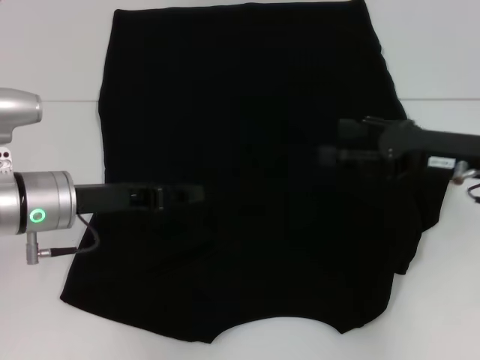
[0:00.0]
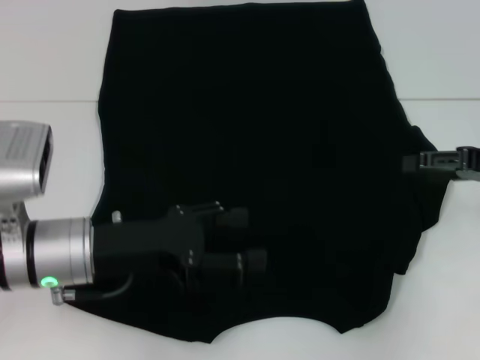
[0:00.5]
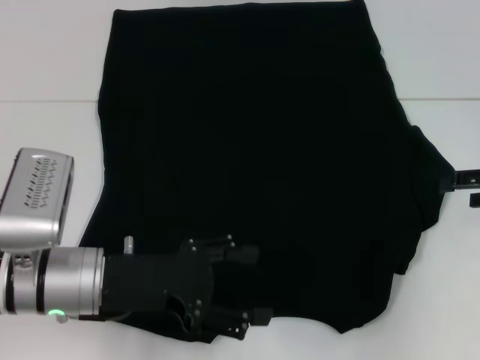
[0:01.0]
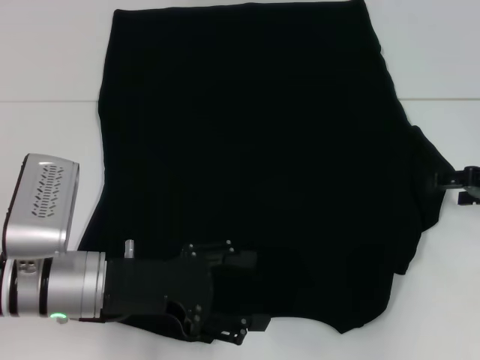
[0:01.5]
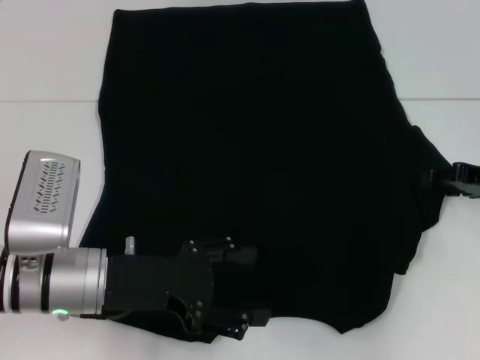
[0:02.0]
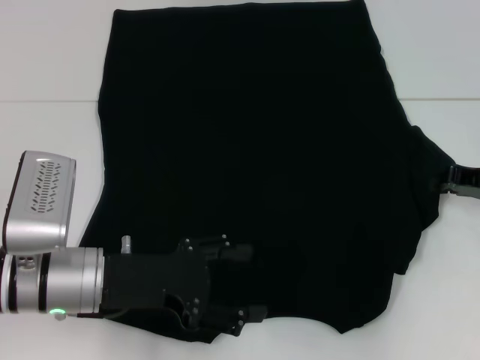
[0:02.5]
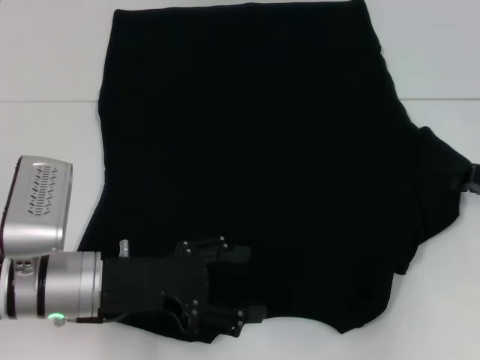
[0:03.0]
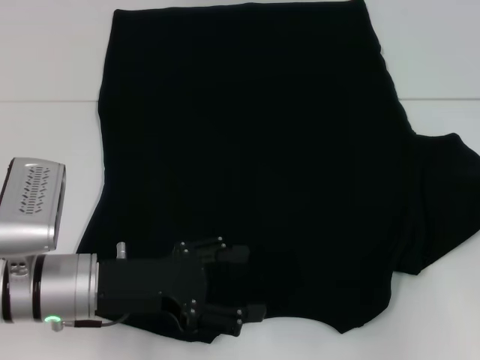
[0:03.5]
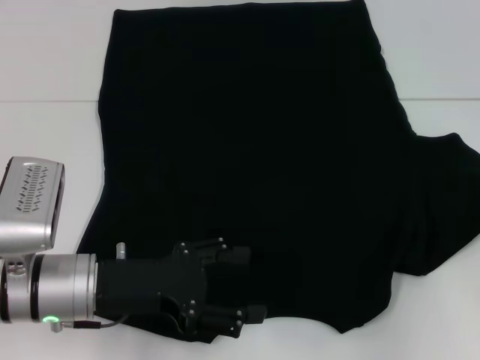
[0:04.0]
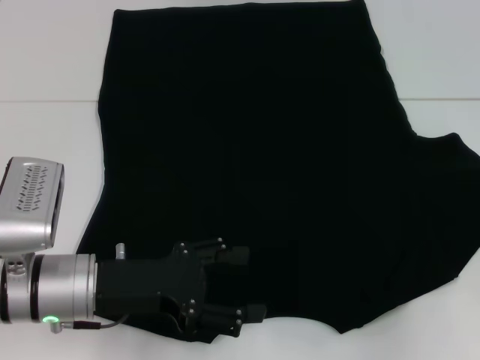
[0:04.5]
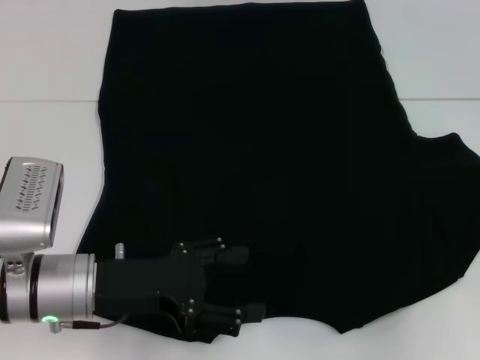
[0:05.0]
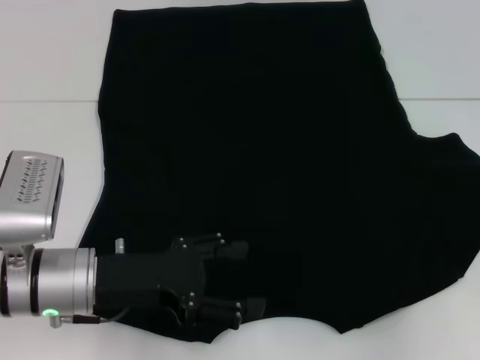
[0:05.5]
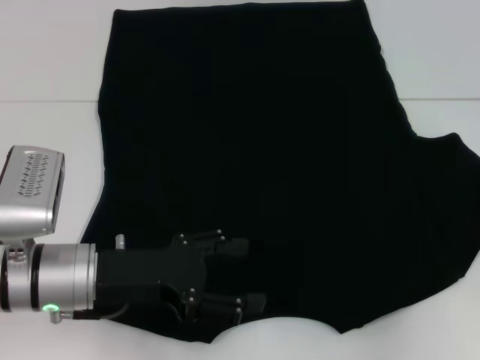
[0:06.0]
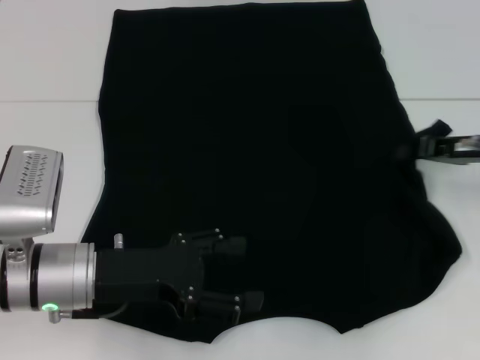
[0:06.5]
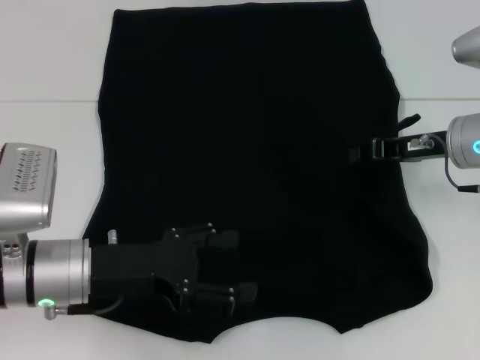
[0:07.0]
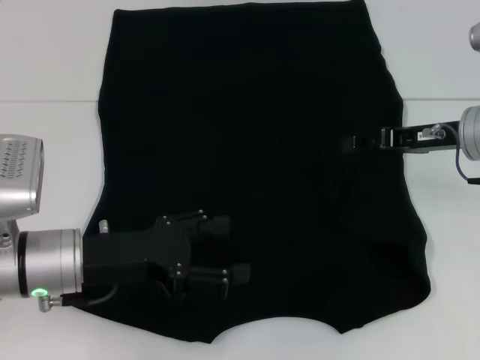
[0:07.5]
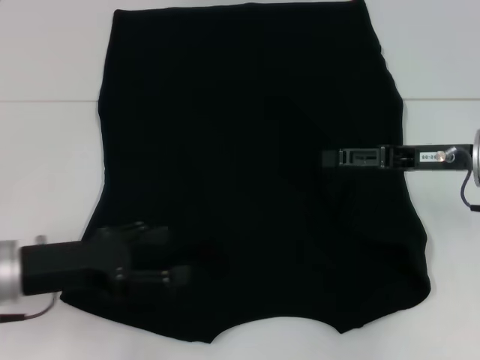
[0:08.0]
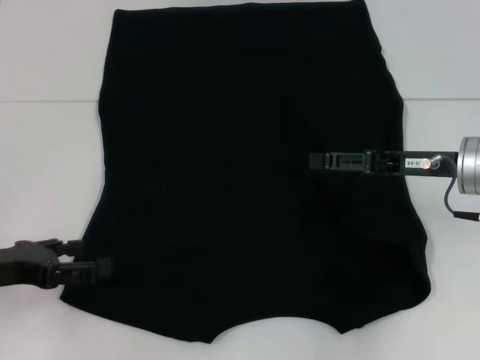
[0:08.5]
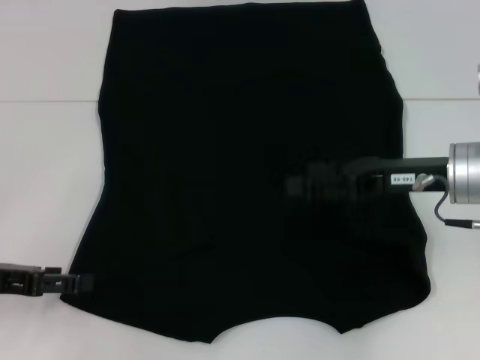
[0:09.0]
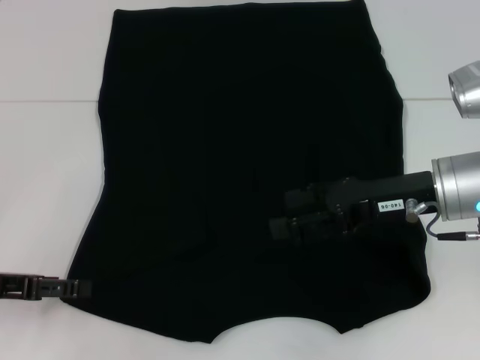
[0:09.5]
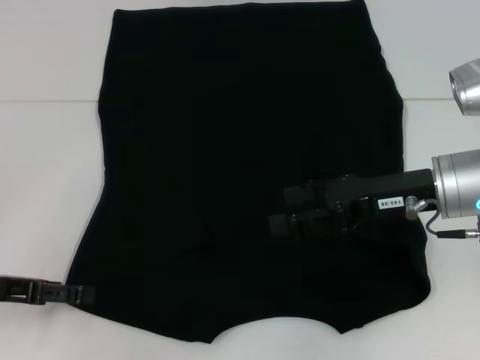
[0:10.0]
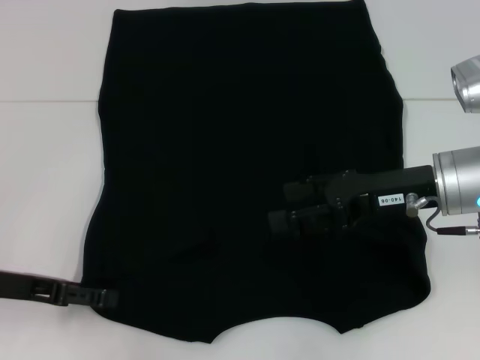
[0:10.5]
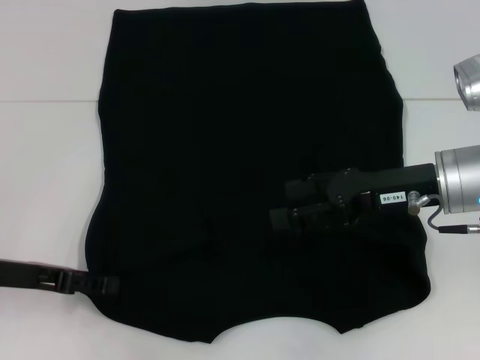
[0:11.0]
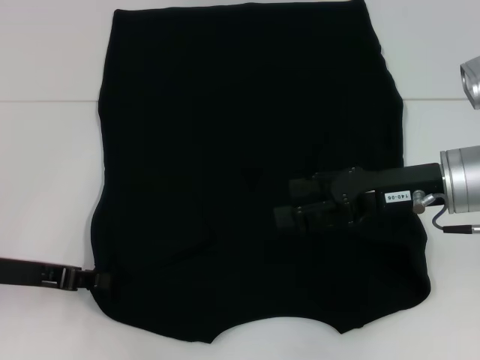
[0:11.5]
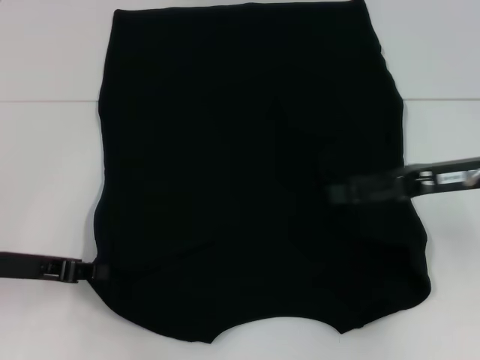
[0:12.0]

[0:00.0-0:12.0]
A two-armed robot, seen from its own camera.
Step, 0:00.5 to 0:07.5: Fold the bottom right sleeve with your right hand.
0:00.0 to 0:02.0: The right gripper is displaced to the right by approximately 5 cm. The left gripper moves backward, approximately 5 cm, and opens.
0:02.0 to 0:04.0: The right gripper is displaced to the right by about 5 cm, and closes up.
0:04.0 to 0:06.0: The two grippers keep their place.
0:06.0 to 0:08.0: The right gripper moves to the left, roughly 10 cm, and opens up, while the left gripper shifts about 5 cm to the left.
0:08.0 to 0:10.0: The left gripper goes approximately 5 cm to the left, while the right gripper moves some 5 cm.
0:10.0 to 0:12.0: The left gripper closes. Meanwhile the right gripper travels to the right by roughly 5 cm.

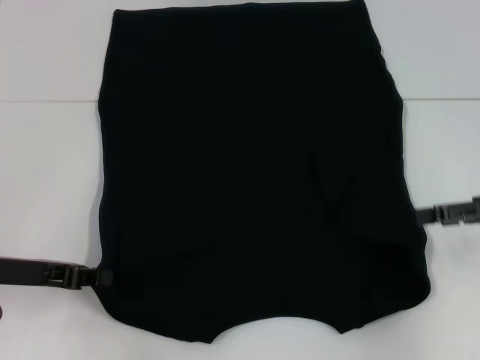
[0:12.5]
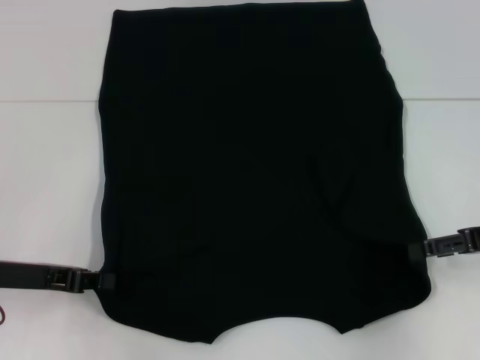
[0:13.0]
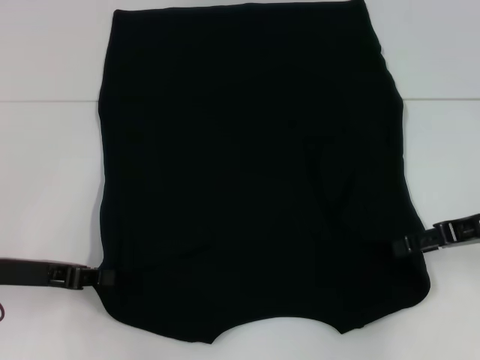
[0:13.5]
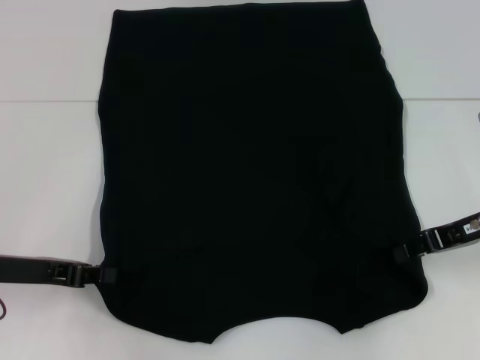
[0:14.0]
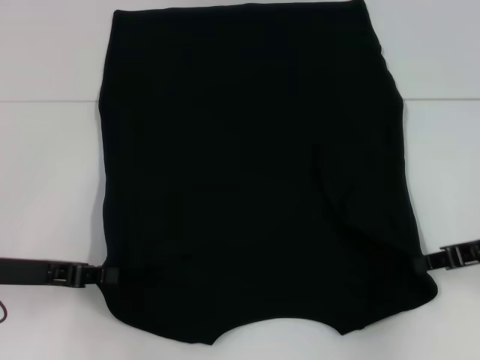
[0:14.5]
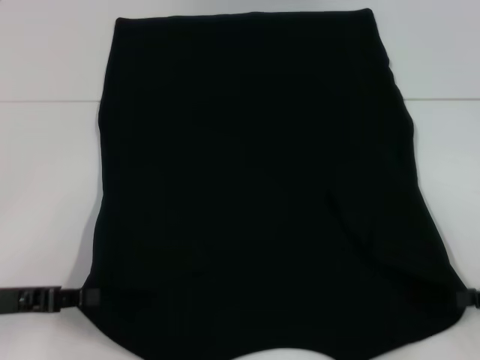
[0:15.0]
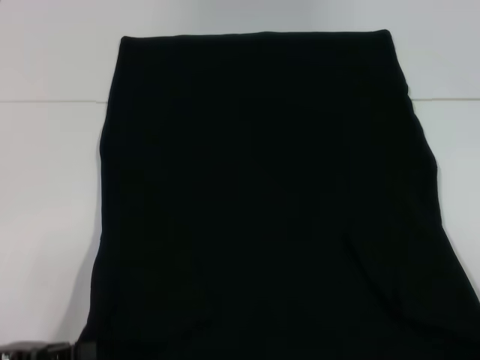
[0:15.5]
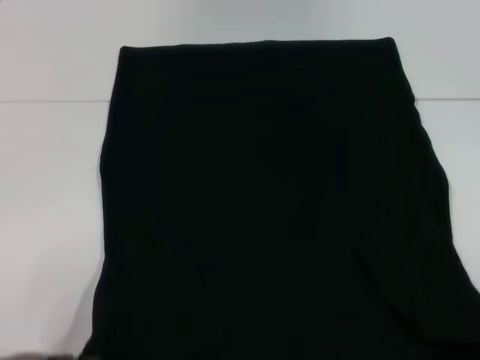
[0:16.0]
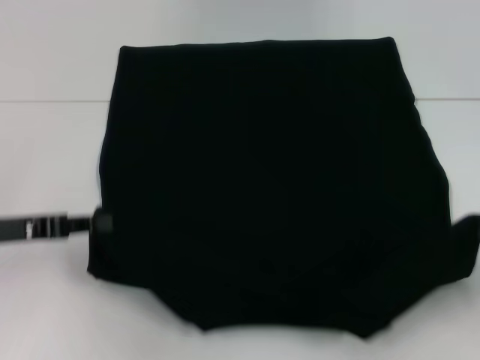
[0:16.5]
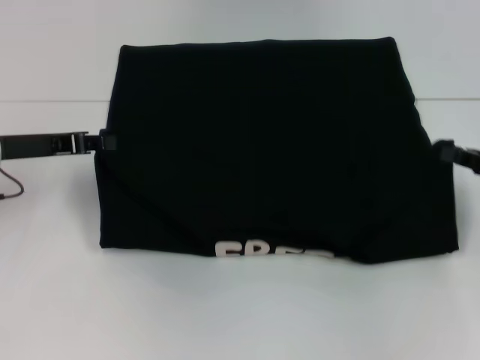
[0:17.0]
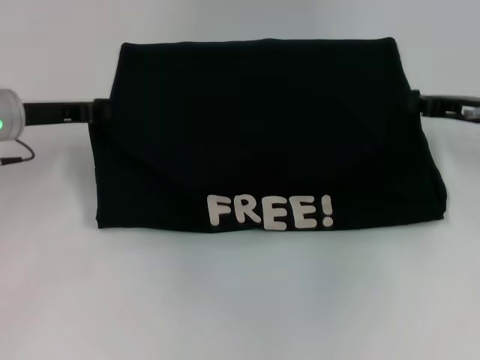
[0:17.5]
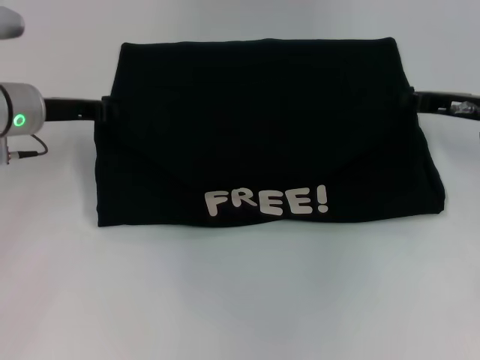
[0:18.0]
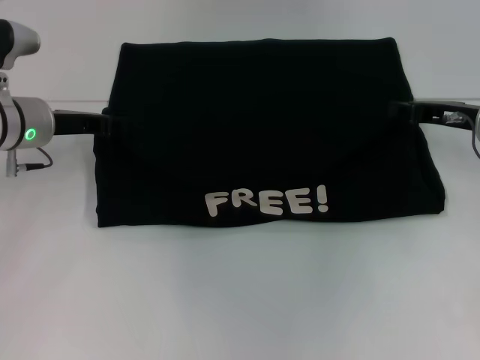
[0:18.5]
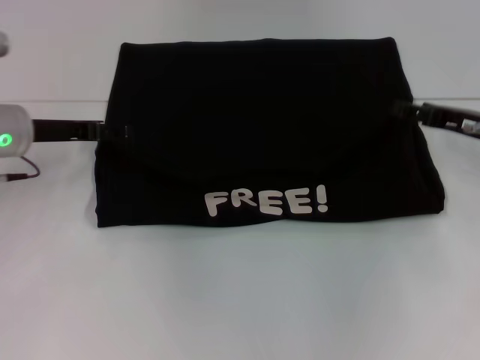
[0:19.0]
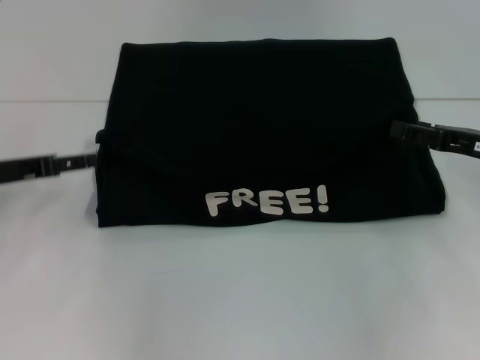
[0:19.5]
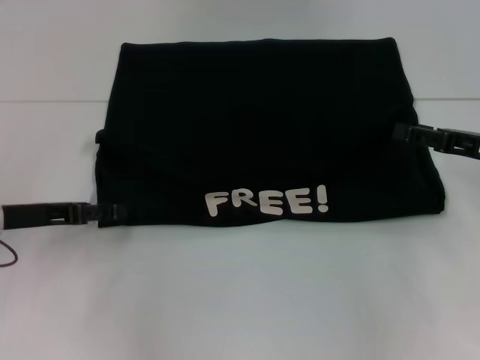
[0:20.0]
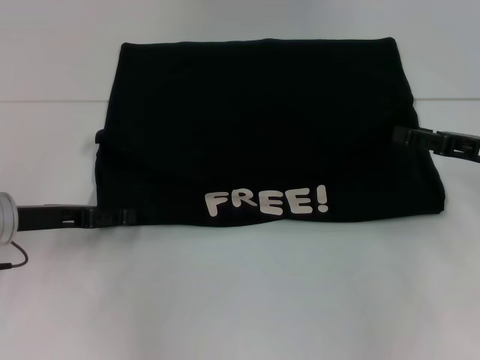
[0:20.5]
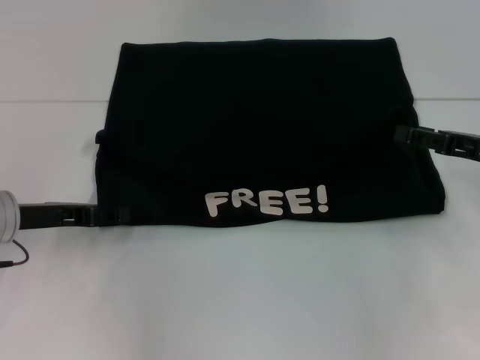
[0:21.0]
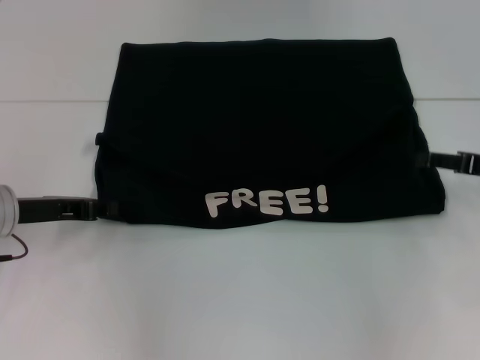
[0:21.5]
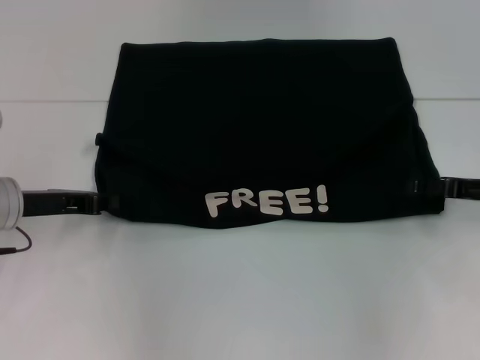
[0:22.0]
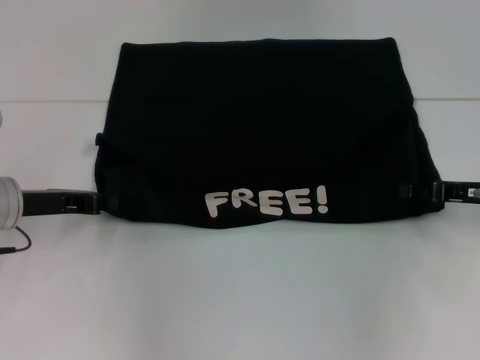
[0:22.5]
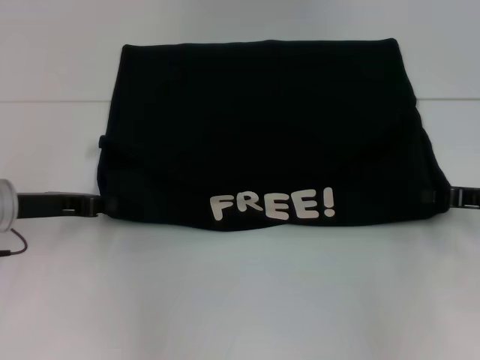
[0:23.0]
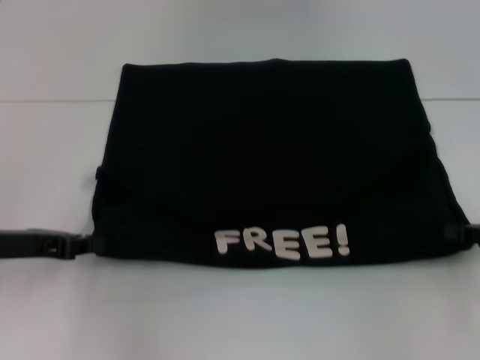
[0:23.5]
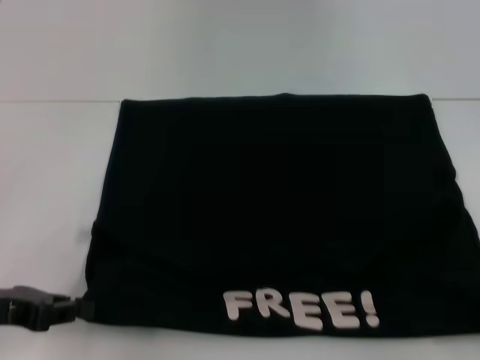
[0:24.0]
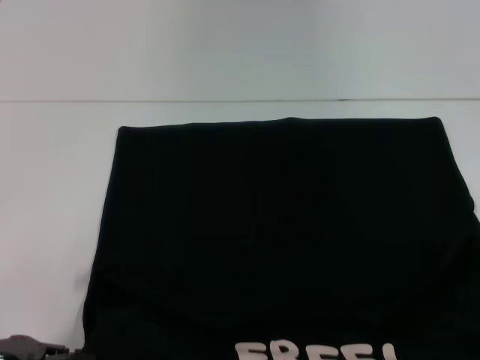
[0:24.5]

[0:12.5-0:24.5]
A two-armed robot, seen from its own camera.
Step, 0:12.5 to 0:14.5: Grab the bottom right corner with your right hand.
Step, 0:15.0 to 0:19.0: Fold the clothes with your left hand.
Step, 0:15.0 to 0:19.0: Fold the clothes with your right hand.
0:12.5 to 0:14.5: The right gripper closes its fingers.
0:14.5 to 0:16.5: The left gripper travels backward and back again, approximately 10 cm each way. Meanwhile the right gripper moves to the right and backward, roughly 10 cm.
0:16.5 to 0:18.5: The right gripper goes roughly 20 cm forward and to the left, while the left gripper is displaced forward and to the right by some 15 cm.
0:18.5 to 0:20.5: The right gripper travels backward by some 5 cm, and opens its fingers, while the left gripper goes roughly 10 cm backward, and opens up.
0:20.5 to 0:22.5: The left gripper closes.
0:22.5 to 0:24.5: The left gripper is displaced backward by approximately 15 cm. Meanwhile the right gripper moves backward and to the right, roughly 20 cm, and closes its fingers.

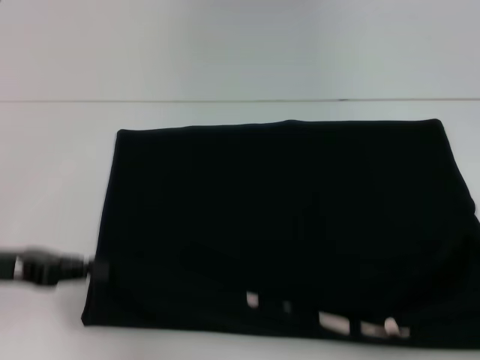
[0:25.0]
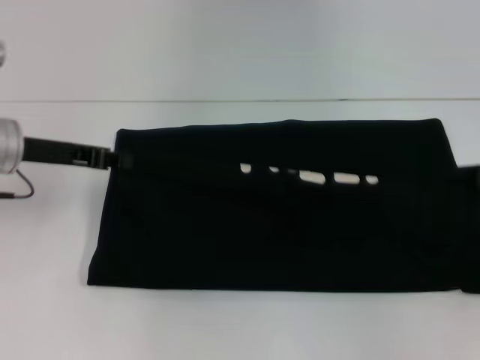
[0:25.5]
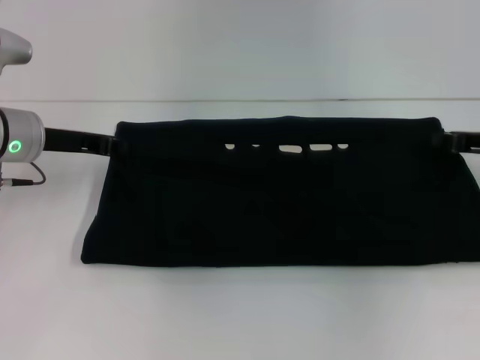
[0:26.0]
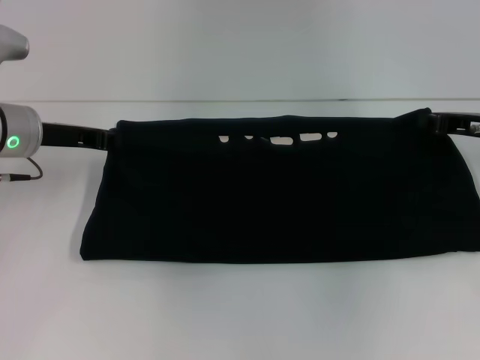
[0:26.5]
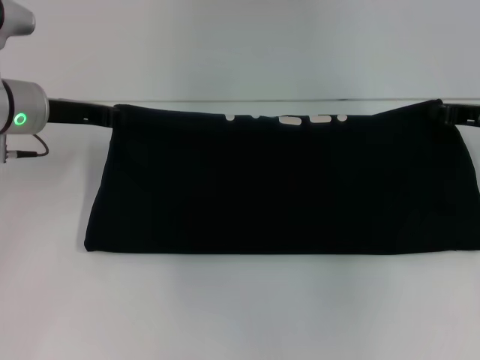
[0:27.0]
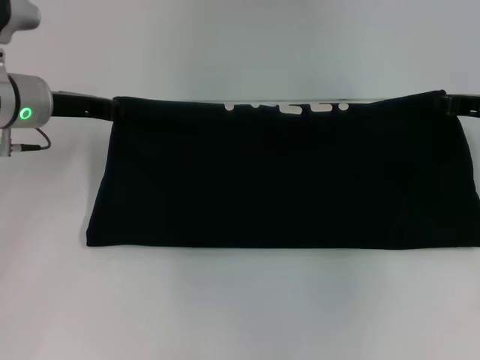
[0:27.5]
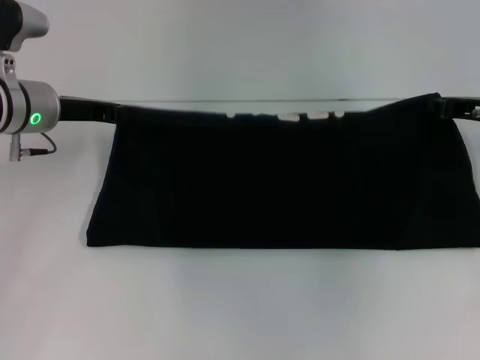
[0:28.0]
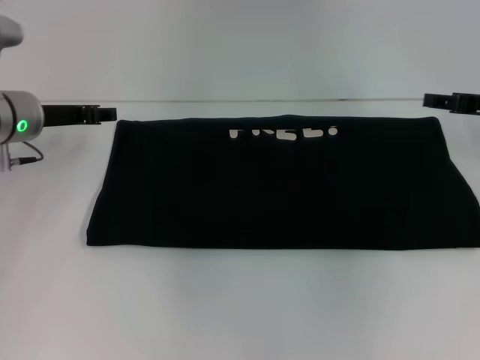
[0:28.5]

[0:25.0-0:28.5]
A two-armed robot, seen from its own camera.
Step, 0:25.0 to 0:28.5: Fold the clothes with your right hand.
0:25.0 to 0:27.0: The left gripper moves forward, roughly 15 cm, while the right gripper moves forward and to the left, about 25 cm.
0:27.0 to 0:28.5: The right gripper opens up.
